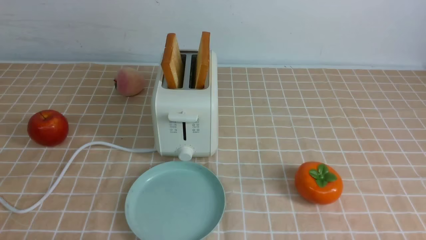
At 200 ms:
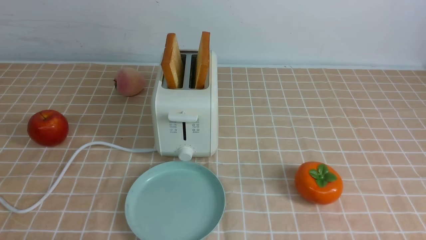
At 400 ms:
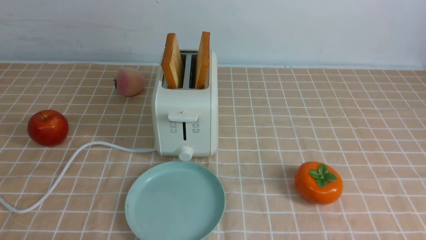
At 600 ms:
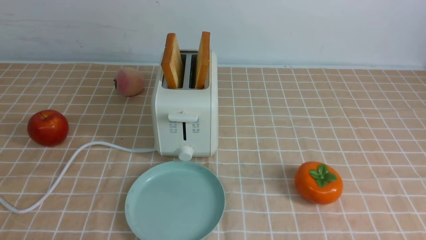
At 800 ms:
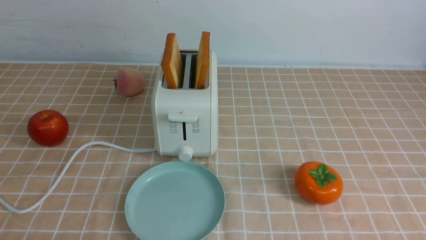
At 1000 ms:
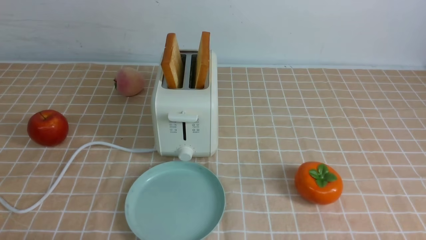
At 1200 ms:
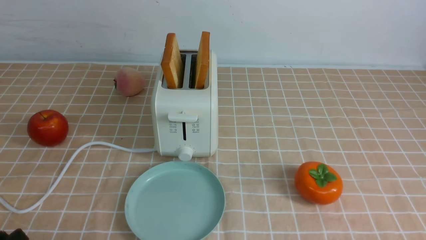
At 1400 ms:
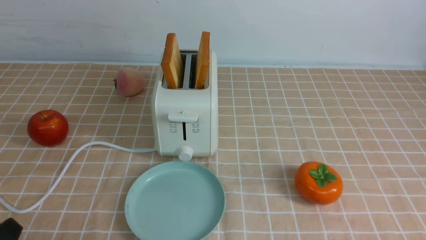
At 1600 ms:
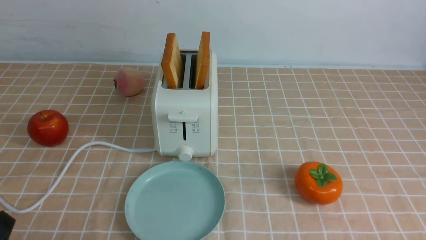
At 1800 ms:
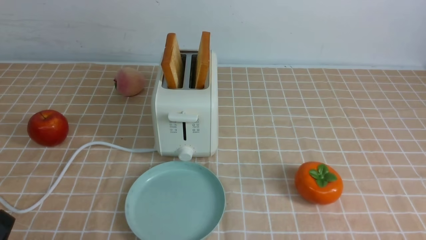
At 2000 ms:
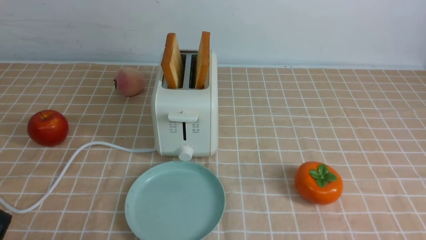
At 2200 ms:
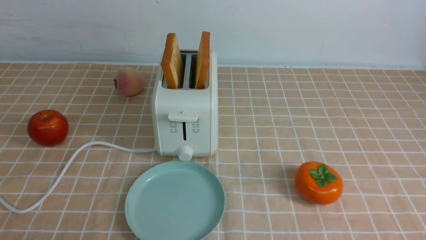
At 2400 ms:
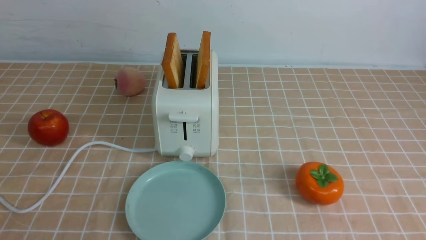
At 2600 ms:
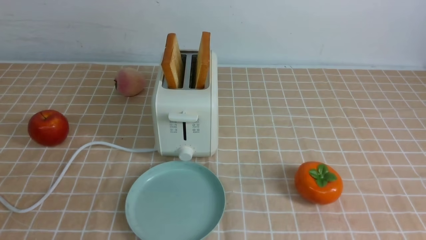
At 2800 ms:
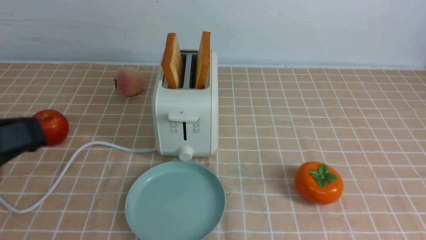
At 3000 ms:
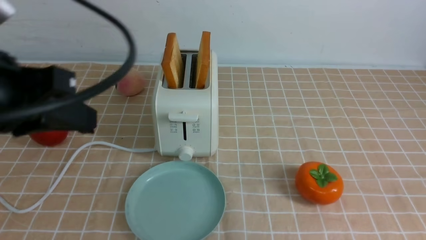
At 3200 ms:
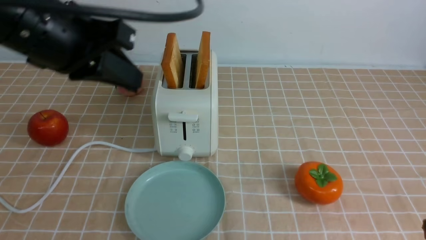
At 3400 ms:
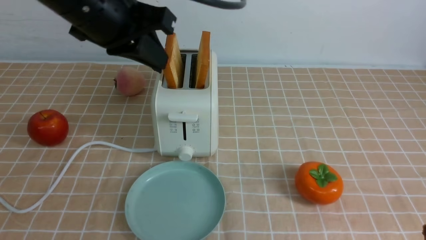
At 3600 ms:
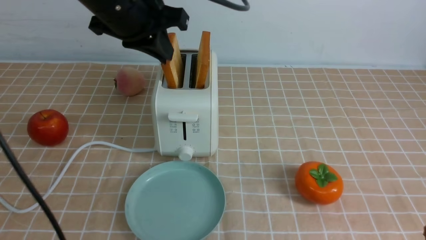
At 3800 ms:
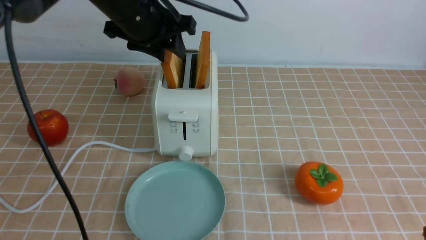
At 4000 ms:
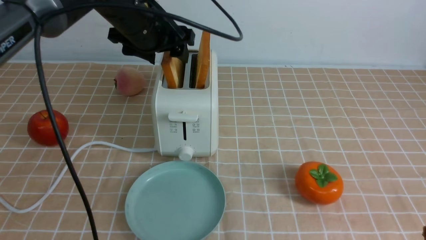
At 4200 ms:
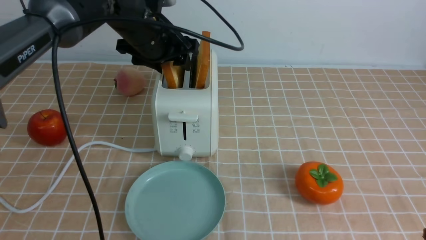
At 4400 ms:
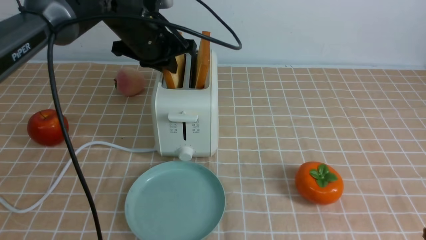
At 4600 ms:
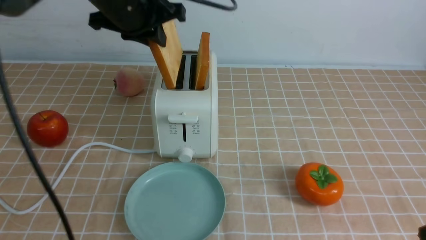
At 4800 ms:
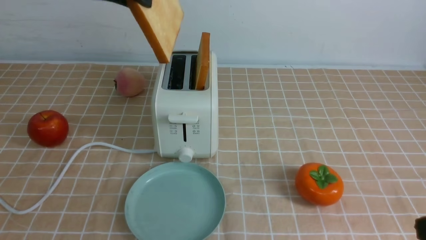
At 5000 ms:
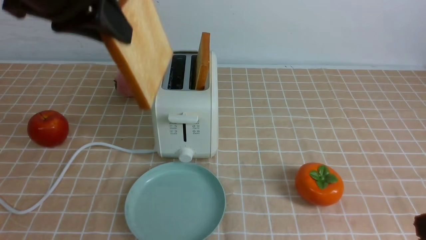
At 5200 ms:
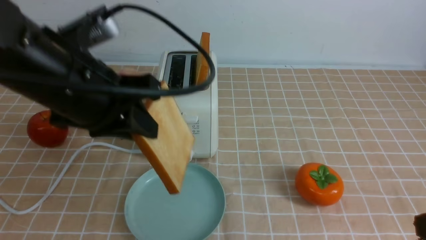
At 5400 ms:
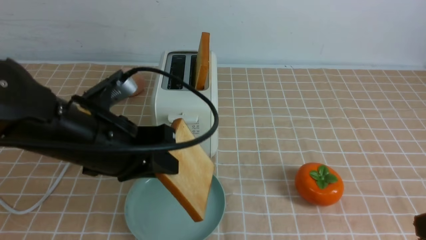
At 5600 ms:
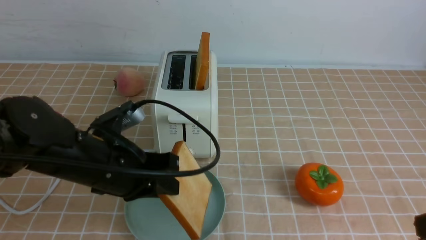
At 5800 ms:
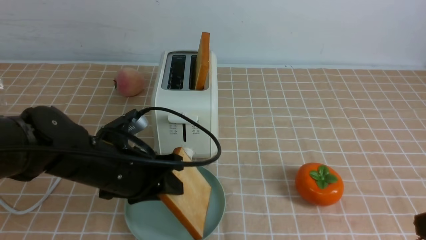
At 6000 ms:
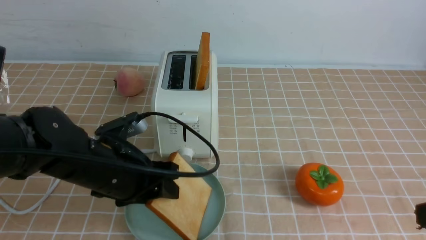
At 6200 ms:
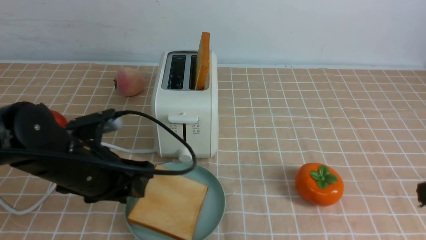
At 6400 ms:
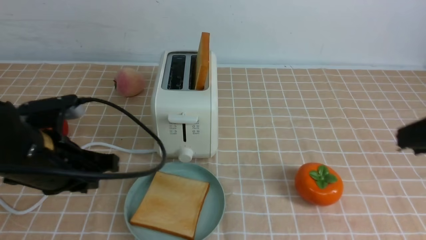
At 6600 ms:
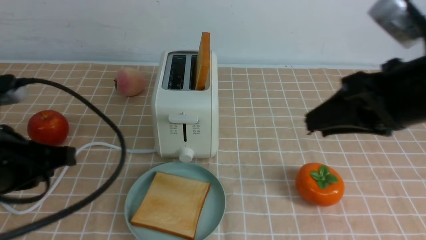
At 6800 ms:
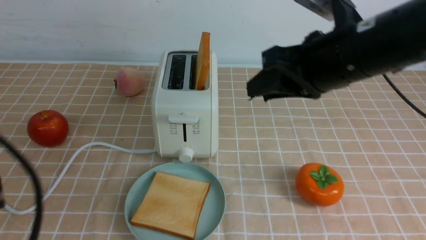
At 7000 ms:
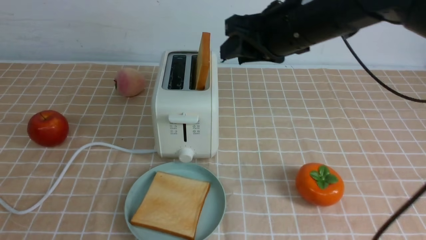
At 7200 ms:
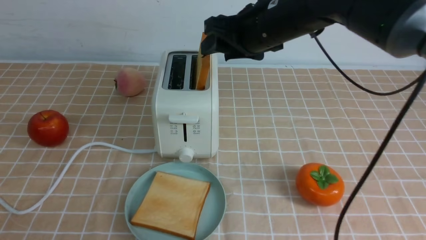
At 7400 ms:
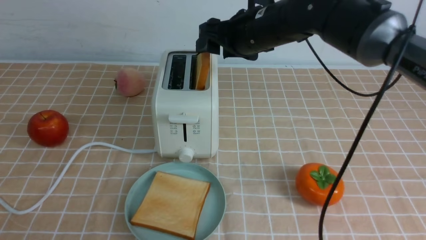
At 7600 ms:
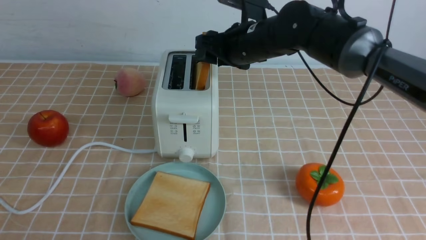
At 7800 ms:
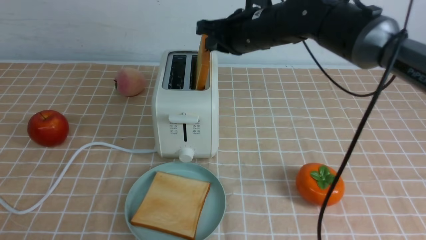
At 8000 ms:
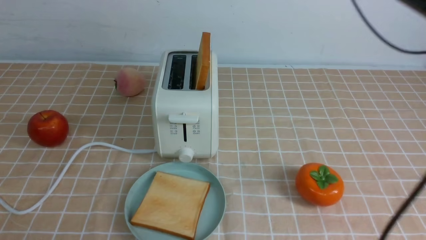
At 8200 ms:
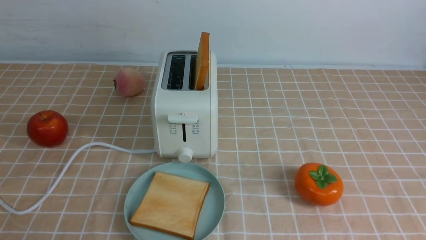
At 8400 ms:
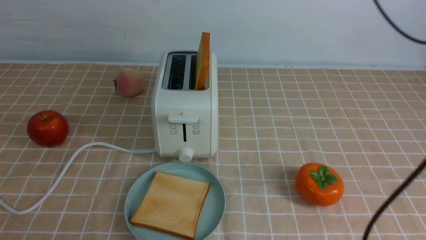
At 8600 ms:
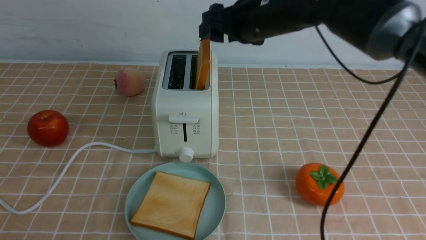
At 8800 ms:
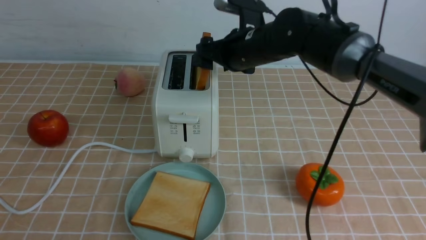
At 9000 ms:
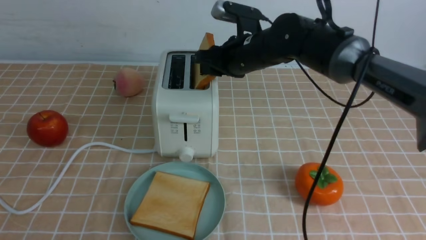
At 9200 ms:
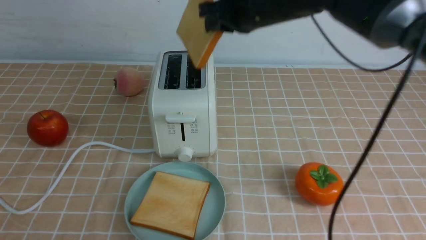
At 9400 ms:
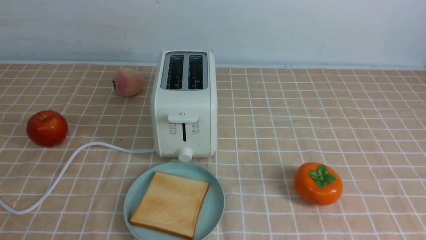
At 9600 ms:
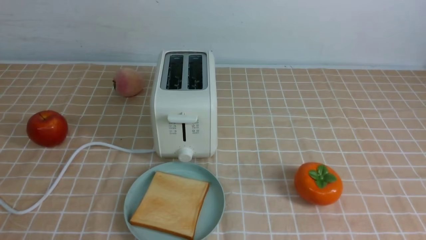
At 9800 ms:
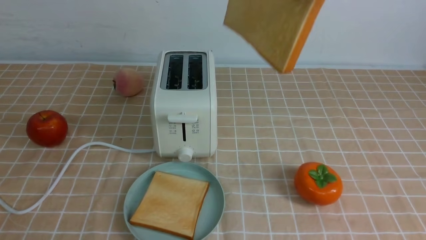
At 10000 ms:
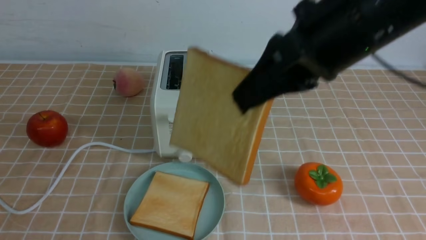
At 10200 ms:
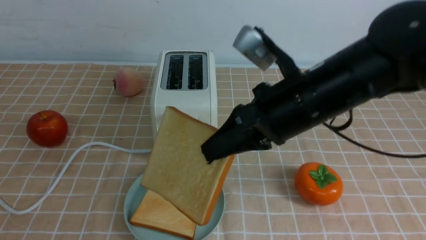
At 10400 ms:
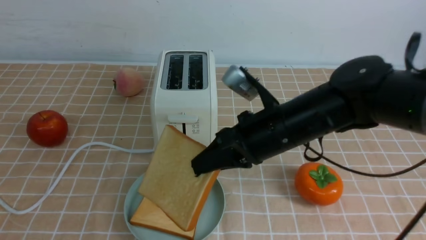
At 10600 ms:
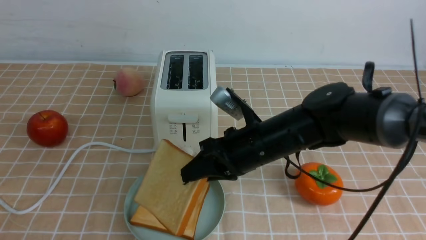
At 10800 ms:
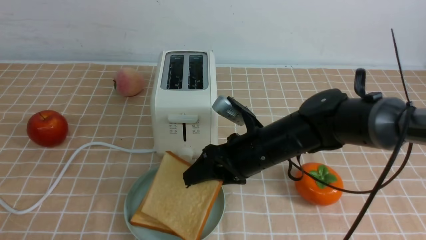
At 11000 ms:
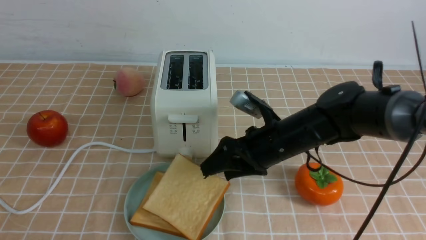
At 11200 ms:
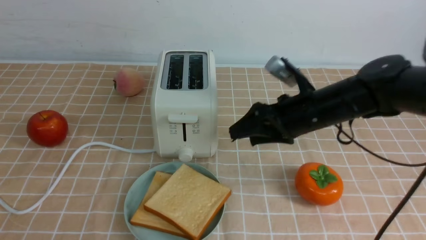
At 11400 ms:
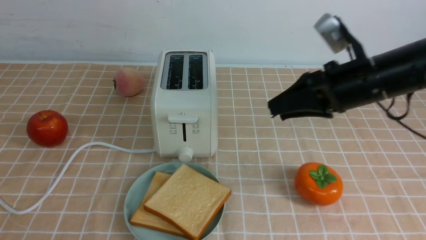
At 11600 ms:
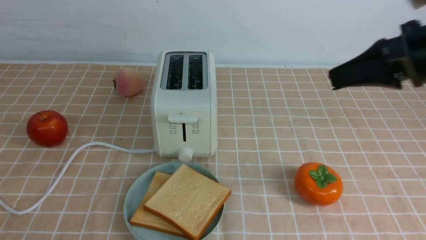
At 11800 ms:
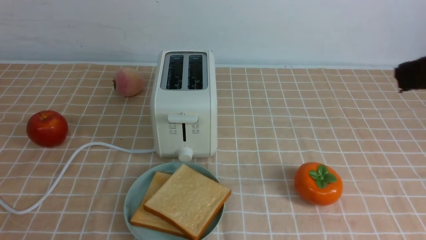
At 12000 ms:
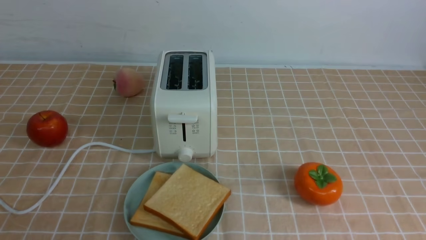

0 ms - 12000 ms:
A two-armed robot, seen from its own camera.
Task of the whole recording: take toasted bread from bread machine on light coffee tablecloth place on plate.
Step, 0 ms - 4600 ms: use the left arm to take out a slice of bread.
Step, 4800 ms - 6400 ms: use the left arm to put a slice of bread into the empty plate.
Step, 6600 ms - 9000 ms: use the right arm to take out a slice of bread.
Step, 9400 ms - 11200 ms: use the right arm to put a slice of bread into the plate.
1600 ms - 3000 ms: The left gripper heads upward and forward, covering about 25 cm, and closes up.
3000 ms - 4400 ms: The left gripper shifts approximately 25 cm forward, and opens its fingers.
4400 ms - 6000 ms: The left gripper travels backward and downward by about 20 cm.
6000 ms - 7600 ms: The left gripper goes about 30 cm backward and to the left, and closes, while the right gripper moves forward and to the left, approximately 35 cm, and opens its fingers.
7600 ms - 9000 ms: The right gripper travels upward and back again, approximately 15 cm each way, and closes, then opens again.
9000 ms - 10400 ms: The right gripper shifts approximately 15 cm backward, and goes upward and returns, some 20 cm each way.
10400 ms - 12000 ms: The right gripper moves to the right, backward and upward, about 30 cm, and opens, then closes again.

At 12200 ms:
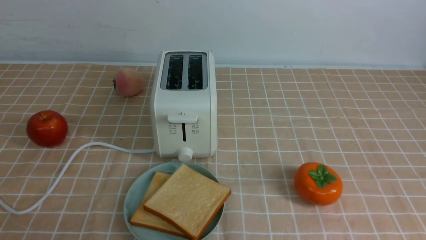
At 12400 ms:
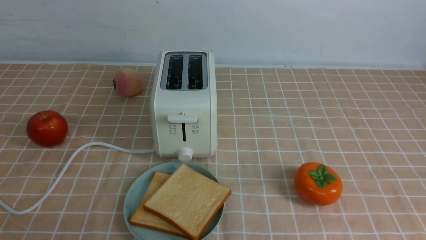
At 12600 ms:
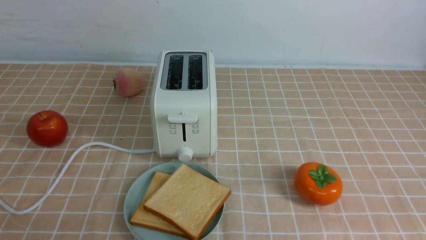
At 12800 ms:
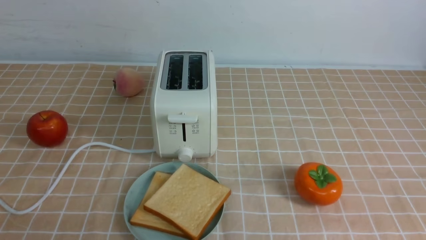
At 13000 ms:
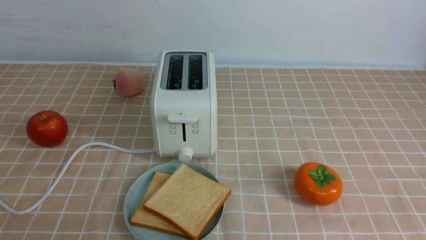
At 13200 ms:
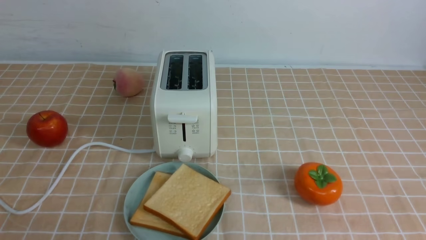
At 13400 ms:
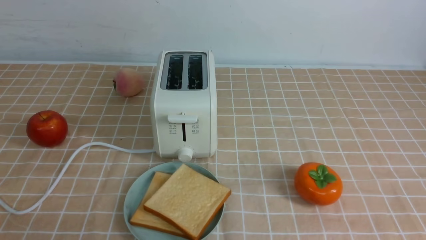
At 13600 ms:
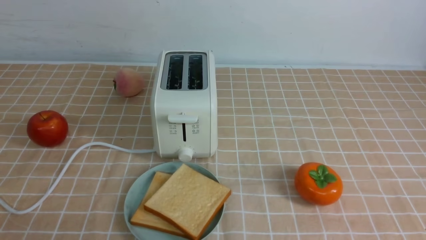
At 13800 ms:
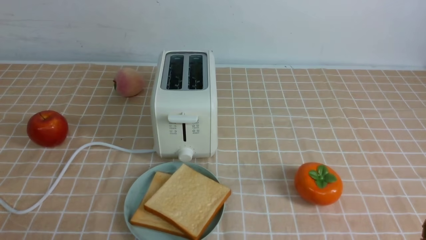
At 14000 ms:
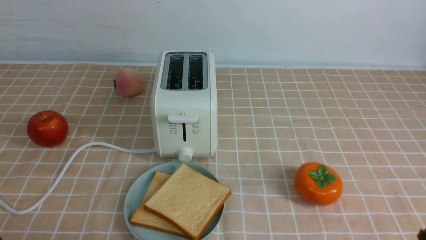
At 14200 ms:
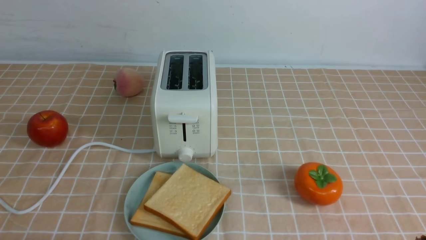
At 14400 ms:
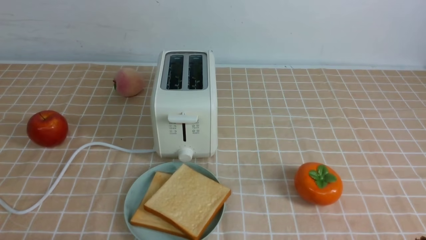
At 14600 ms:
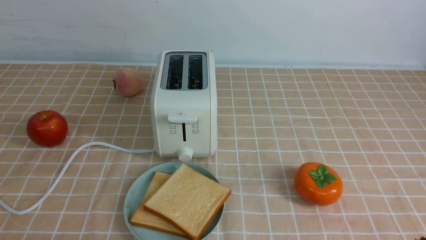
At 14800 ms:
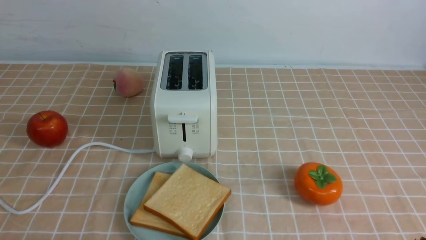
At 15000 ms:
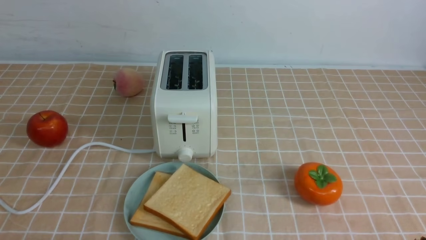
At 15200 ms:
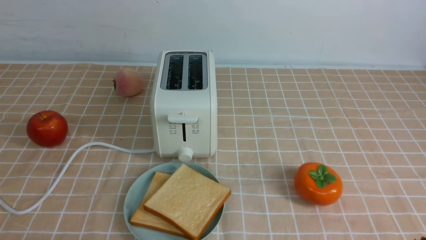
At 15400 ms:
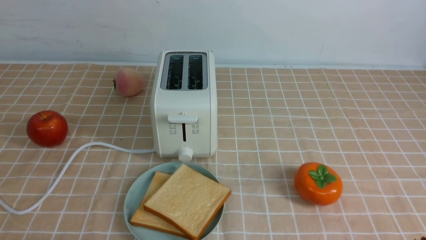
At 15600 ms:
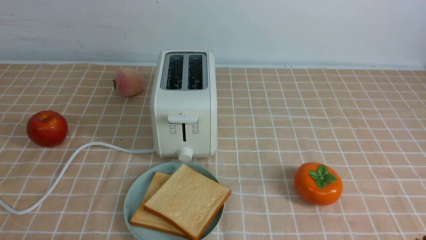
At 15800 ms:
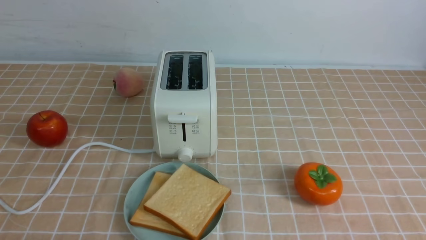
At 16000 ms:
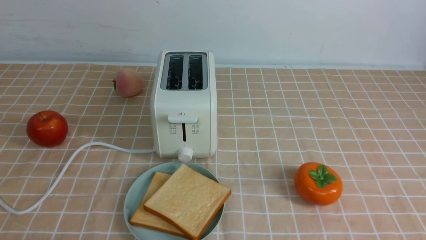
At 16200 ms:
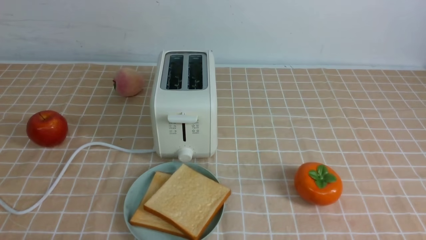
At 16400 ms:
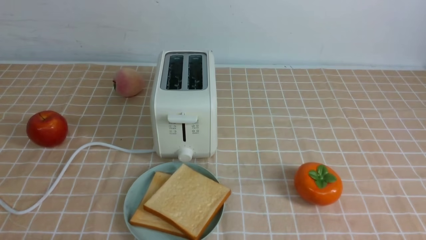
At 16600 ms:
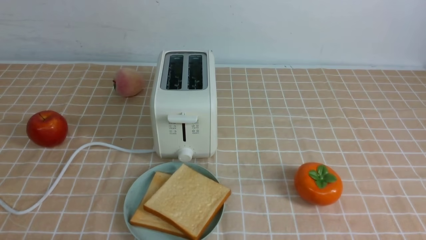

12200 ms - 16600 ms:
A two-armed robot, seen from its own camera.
Task of the whole recording: take toasted bread from bread machine on light coffee tablecloth place on plate.
12200 ms - 13600 ms: The right gripper goes about 10 cm downward.
